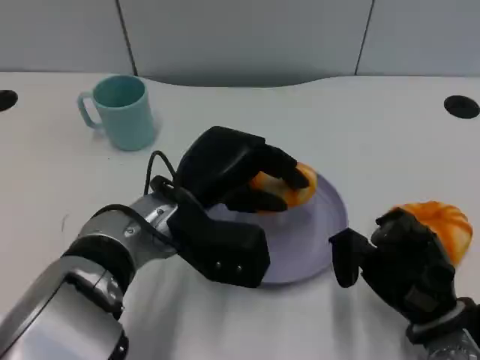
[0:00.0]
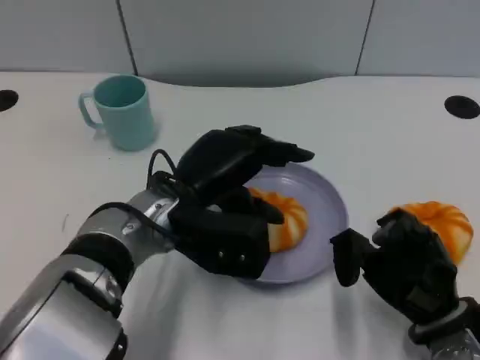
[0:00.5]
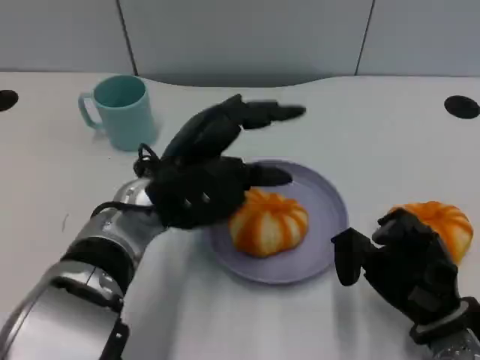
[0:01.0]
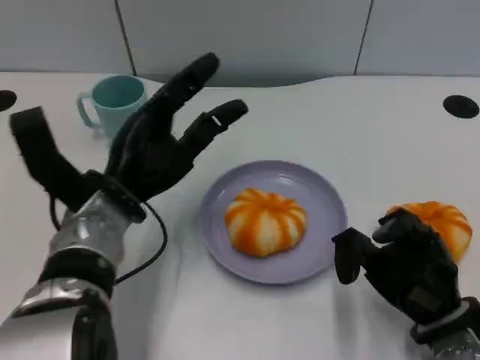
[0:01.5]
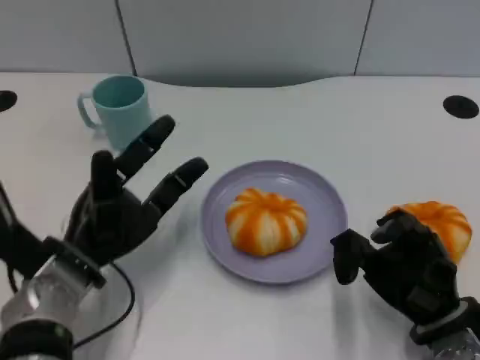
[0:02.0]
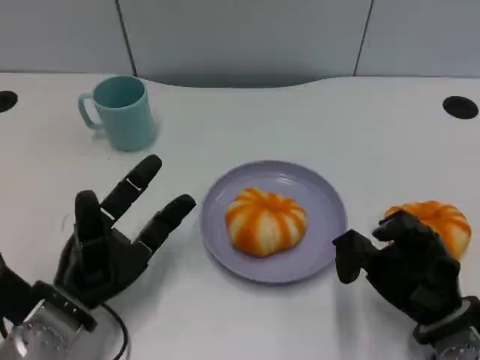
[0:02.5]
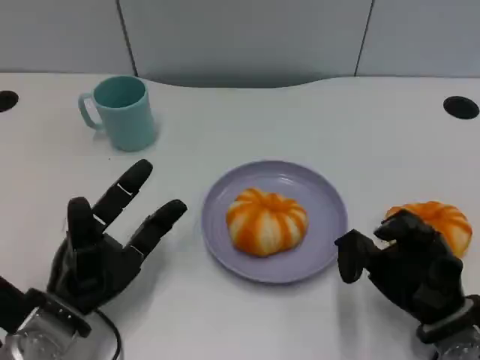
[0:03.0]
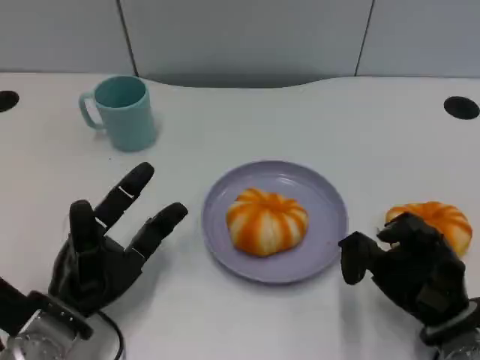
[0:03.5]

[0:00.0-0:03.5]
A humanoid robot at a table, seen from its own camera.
Task of the whole recording: Grasp the bread from the table and place it into the plate.
0:00.0 to 0:02.0: The left hand heads to the left and downward, covering some 15 cm.
0:02.0 to 0:03.5: The hands make only small movements.

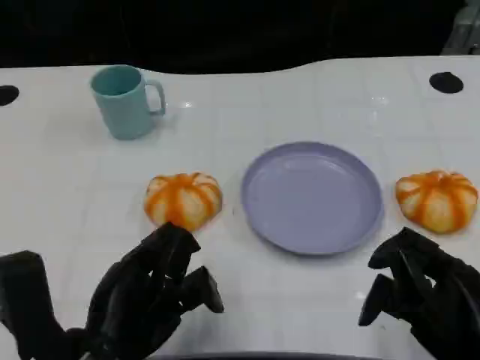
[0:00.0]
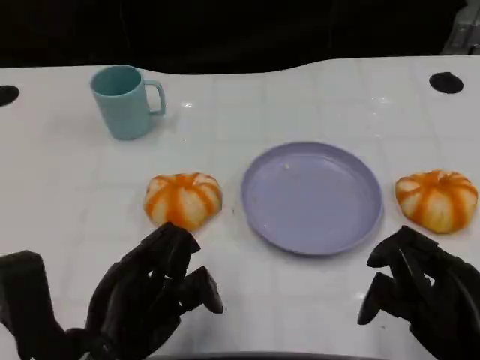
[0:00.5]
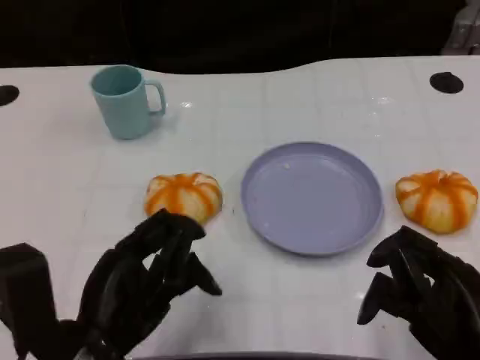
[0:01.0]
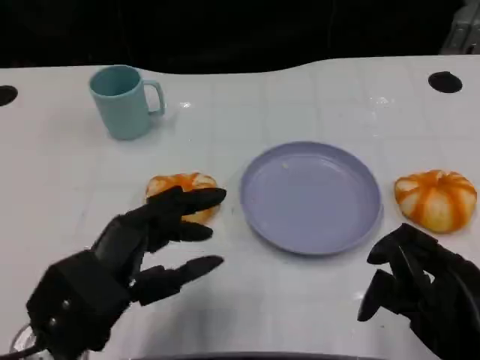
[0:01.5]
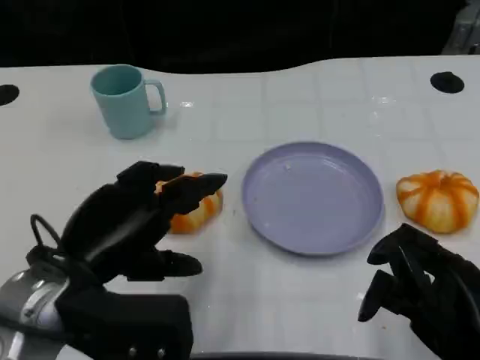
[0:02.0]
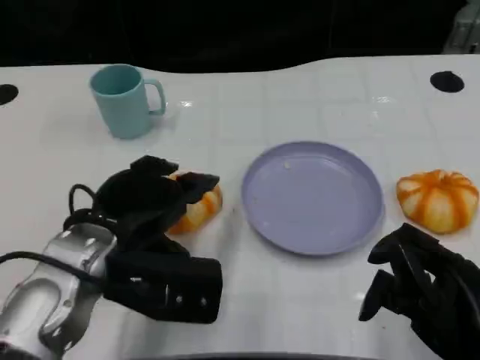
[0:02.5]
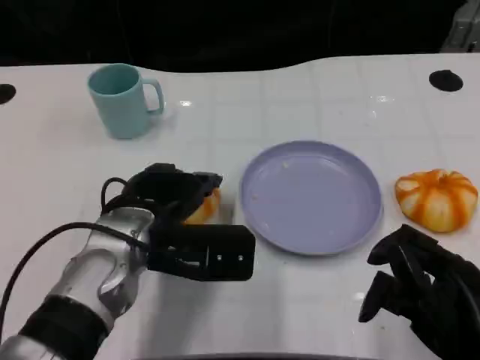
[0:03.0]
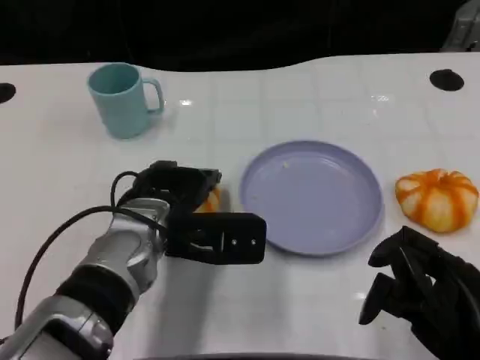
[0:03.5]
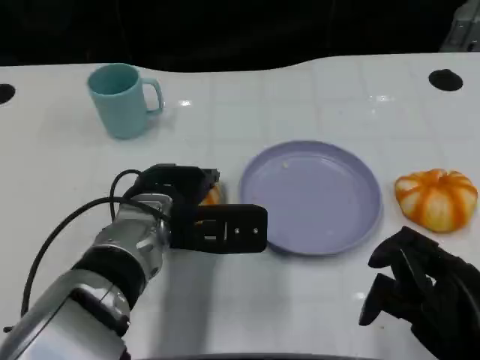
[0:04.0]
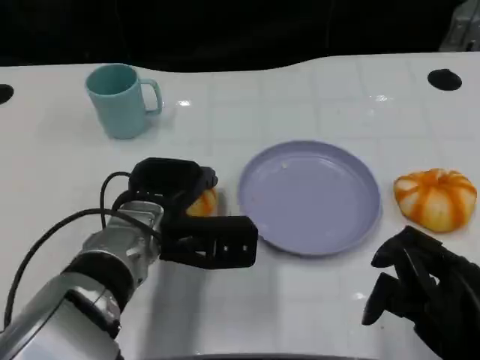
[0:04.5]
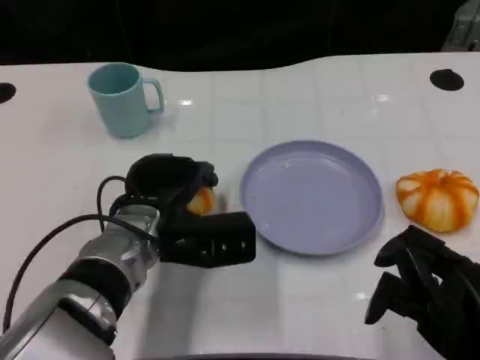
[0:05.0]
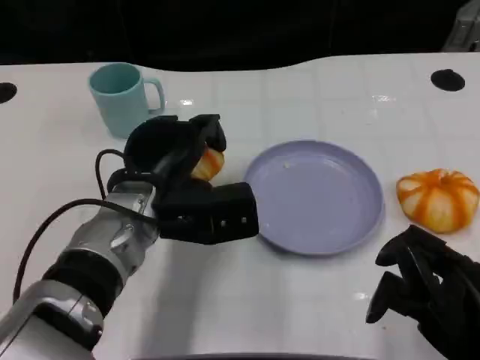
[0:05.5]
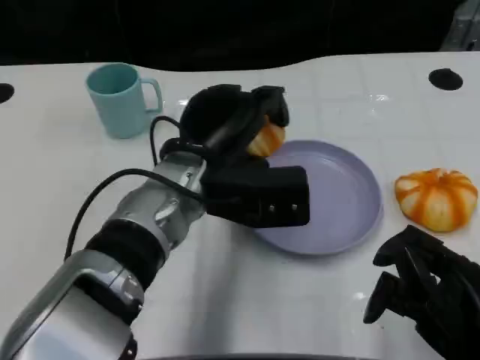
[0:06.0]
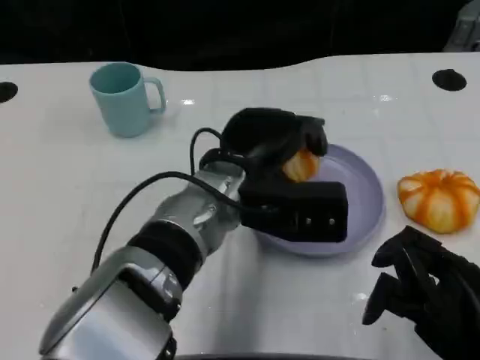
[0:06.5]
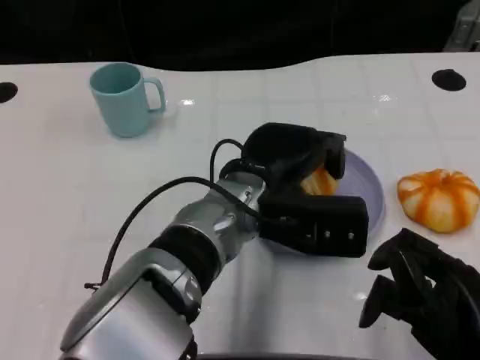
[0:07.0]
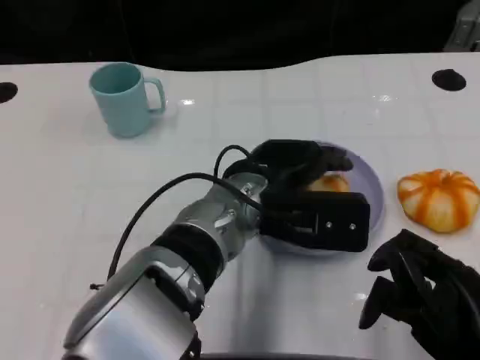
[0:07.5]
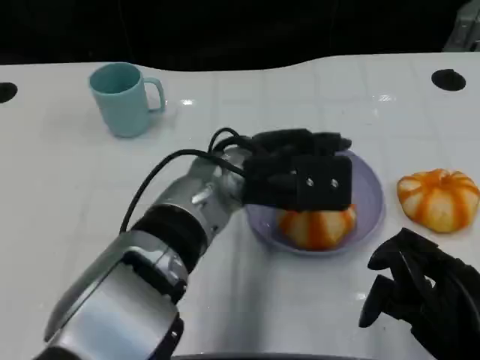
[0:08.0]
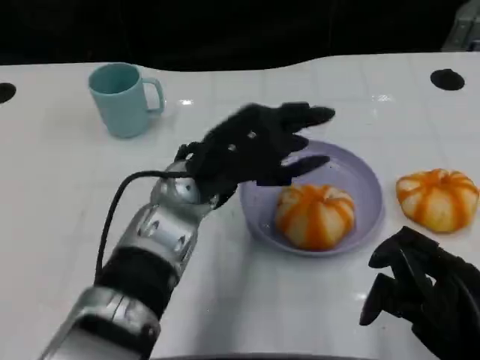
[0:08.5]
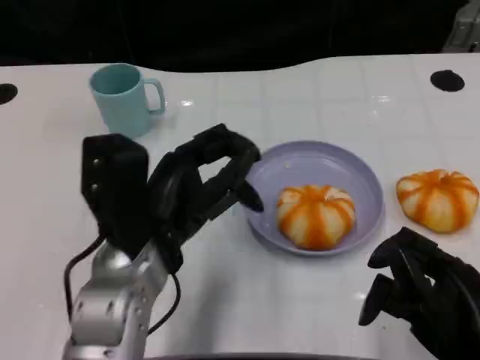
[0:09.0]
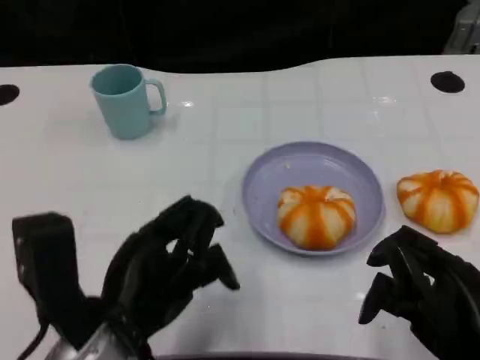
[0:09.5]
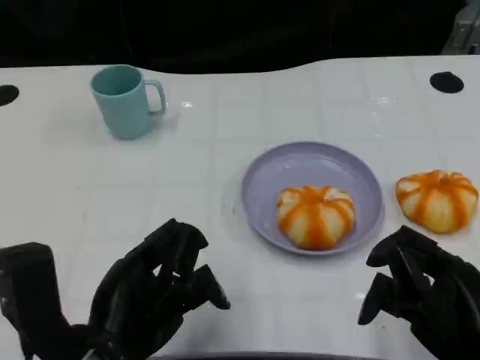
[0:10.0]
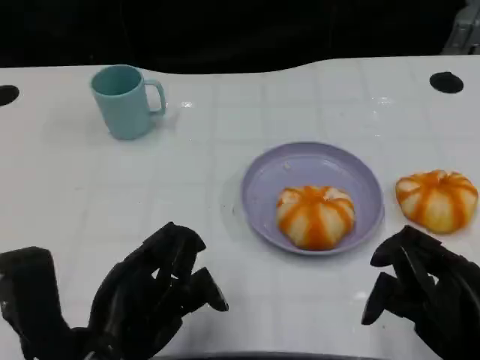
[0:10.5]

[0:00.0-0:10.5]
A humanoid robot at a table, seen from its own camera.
Task of the whole recording: Grasp the bread from the table and place it into the plate.
0:00.0 to 0:02.0: The left hand moves upward, about 5 cm.
0:02.0 to 0:04.0: The left hand shifts roughly 15 cm forward, to the right and downward.
0:04.0 to 0:06.5: The left hand goes about 10 cm to the right.
0:08.5 to 0:10.5: The left hand shifts some 15 cm backward and to the left.

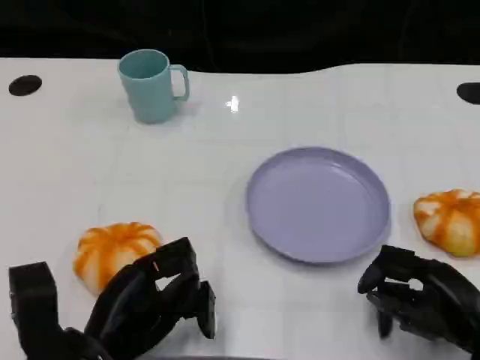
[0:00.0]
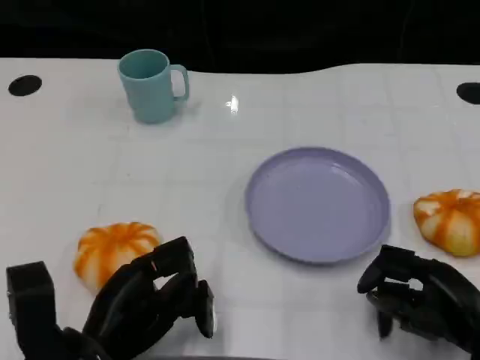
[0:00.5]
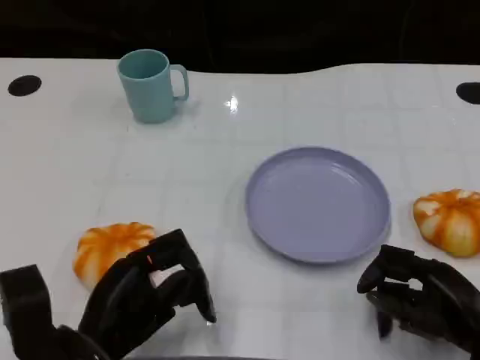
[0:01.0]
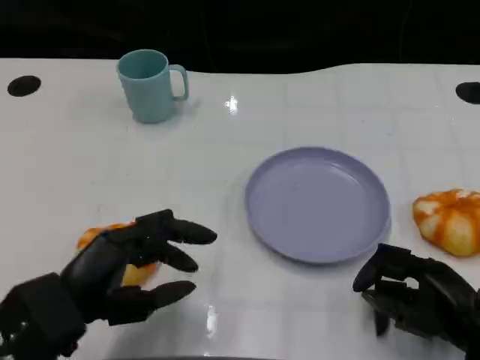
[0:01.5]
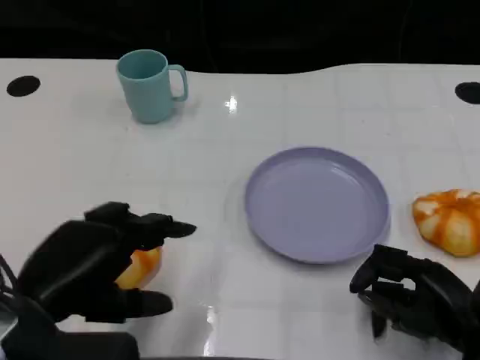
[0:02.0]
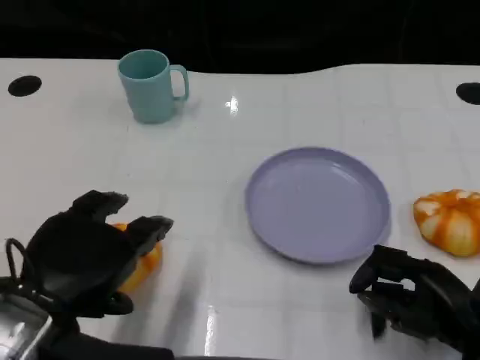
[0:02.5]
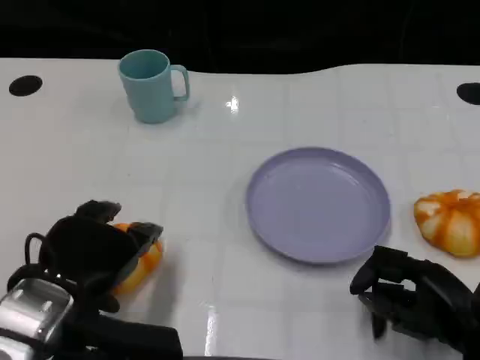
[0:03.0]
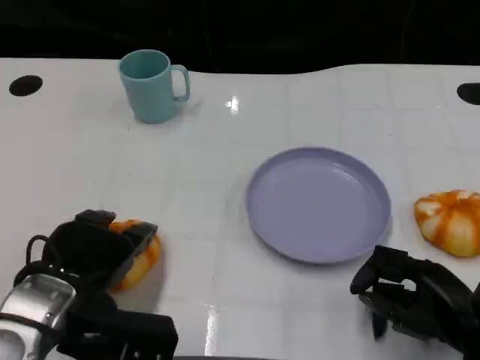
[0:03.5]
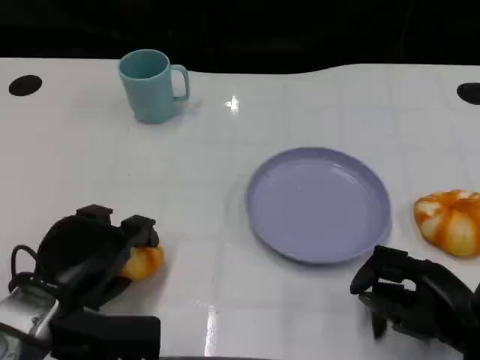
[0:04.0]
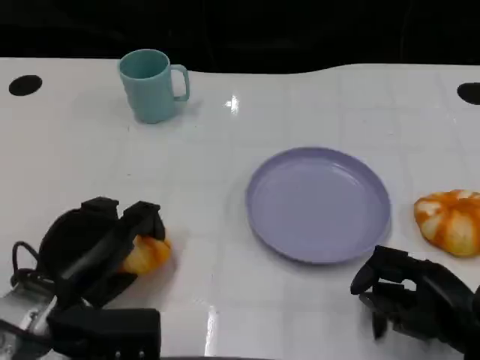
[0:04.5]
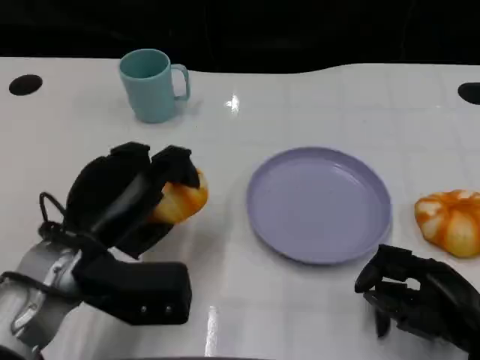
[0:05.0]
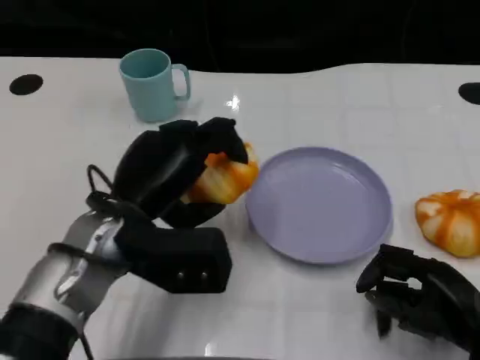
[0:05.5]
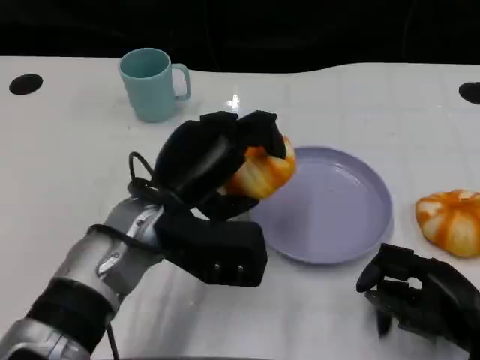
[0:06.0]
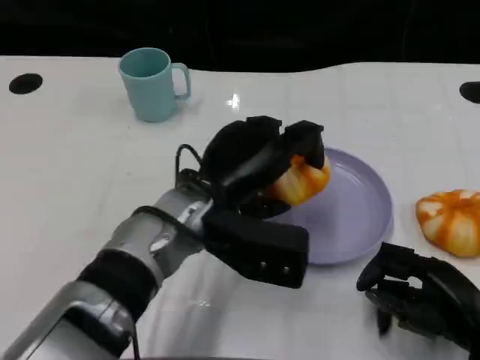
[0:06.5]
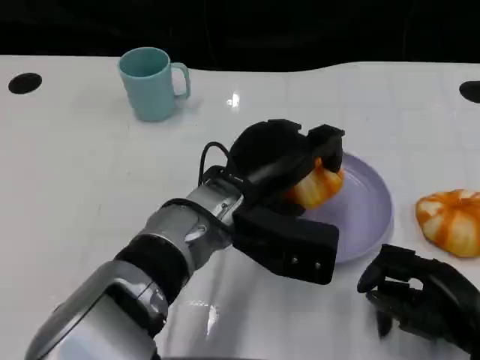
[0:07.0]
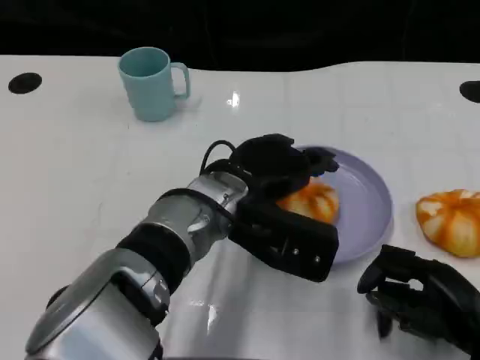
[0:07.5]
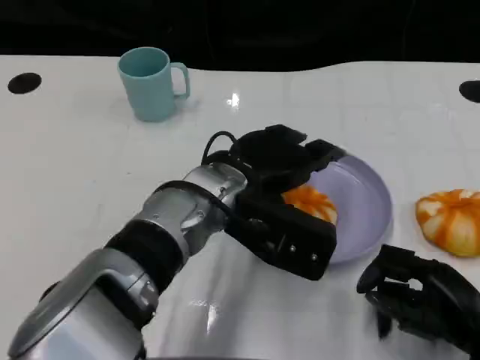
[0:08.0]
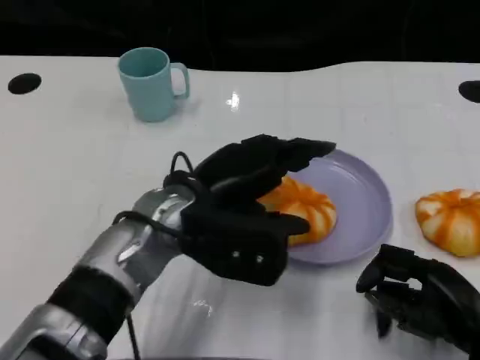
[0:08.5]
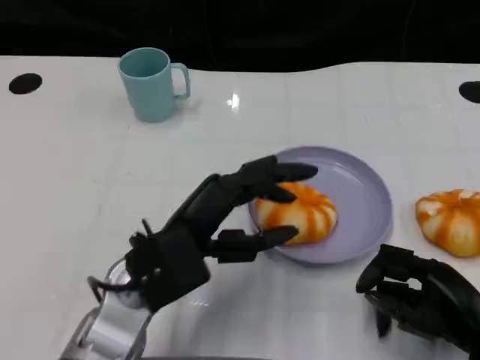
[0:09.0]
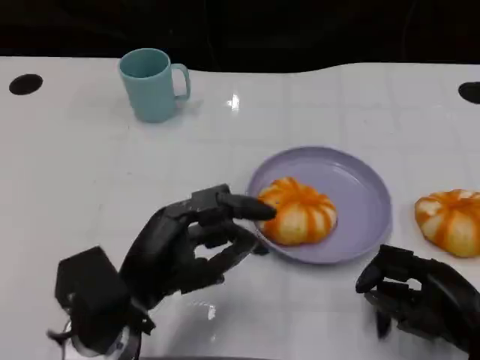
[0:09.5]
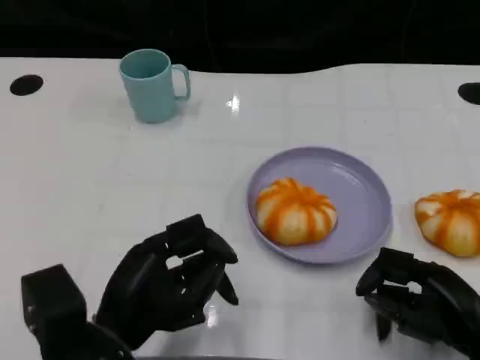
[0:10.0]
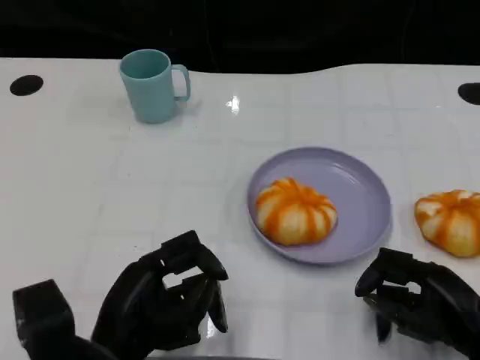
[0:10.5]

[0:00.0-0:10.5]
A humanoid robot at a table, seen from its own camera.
Task of the whole recording: Grasp the bread from the table and place it into the plate.
0:00.0 to 0:02.0: The left hand travels upward by roughly 10 cm.
0:02.0 to 0:04.0: The left hand heads downward, covering some 5 cm.
0:04.0 to 0:06.5: The left hand heads to the right and forward, covering approximately 15 cm.
0:08.5 to 0:10.5: The left hand goes some 15 cm backward, to the left and downward.

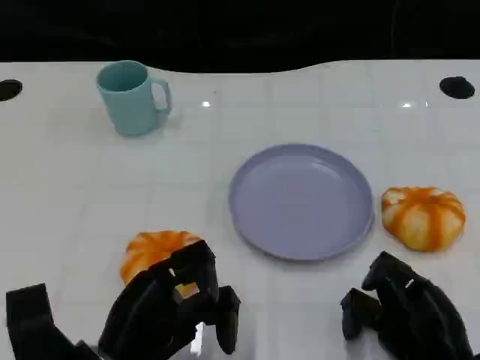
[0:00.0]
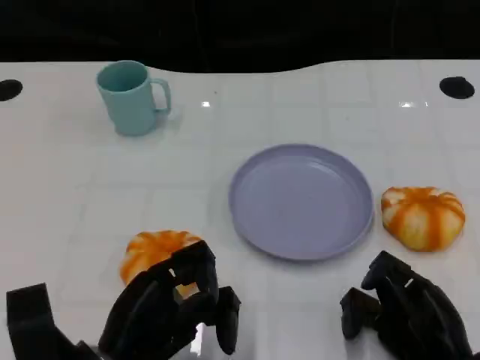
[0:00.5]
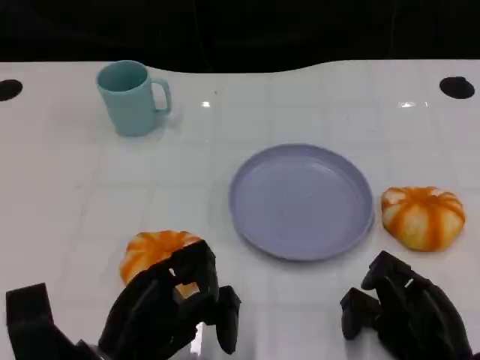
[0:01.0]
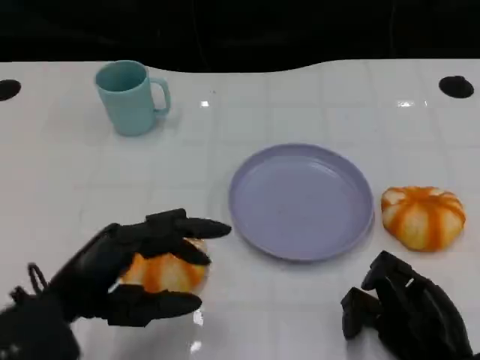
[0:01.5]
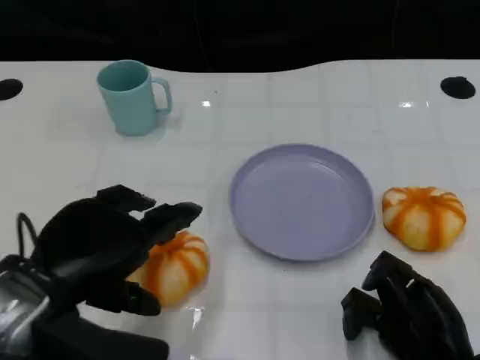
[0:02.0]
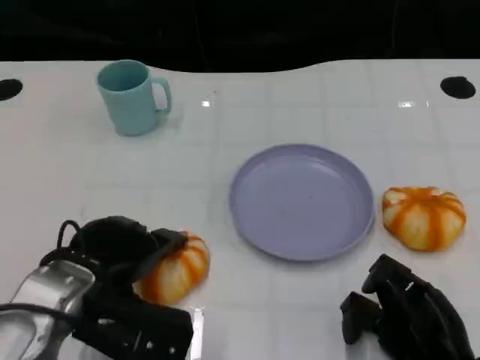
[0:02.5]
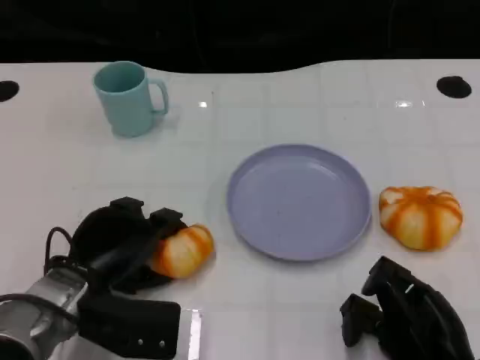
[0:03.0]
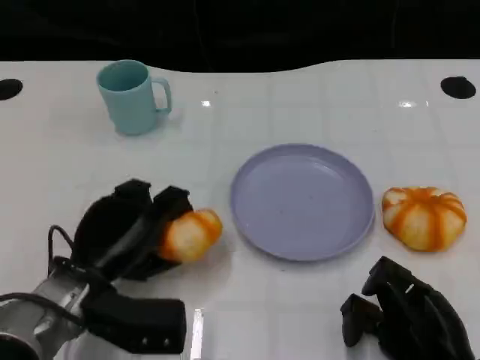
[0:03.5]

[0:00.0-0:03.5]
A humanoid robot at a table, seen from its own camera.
Task of the whole recording: Grasp the bread from the table and place it into the plate.
0:00.0 to 0:02.0: The left hand moves upward, approximately 10 cm.
0:02.0 to 0:03.5: The left hand goes approximately 10 cm downward and forward.
